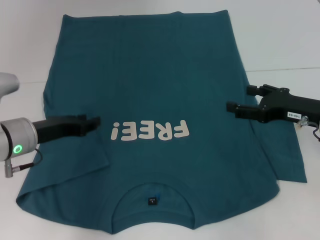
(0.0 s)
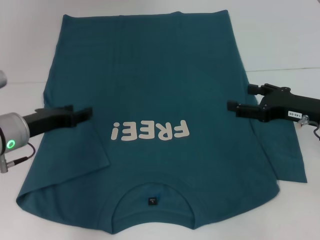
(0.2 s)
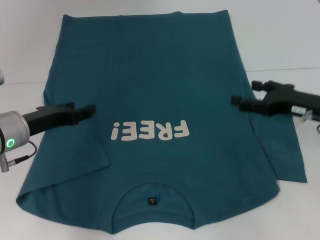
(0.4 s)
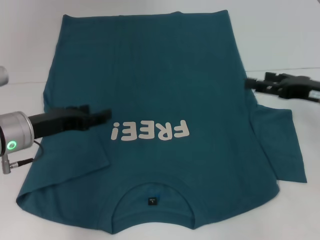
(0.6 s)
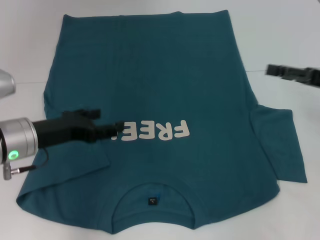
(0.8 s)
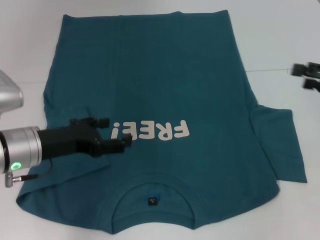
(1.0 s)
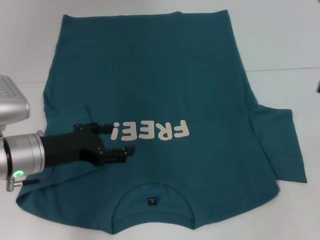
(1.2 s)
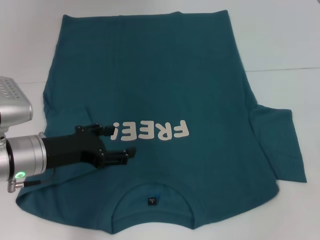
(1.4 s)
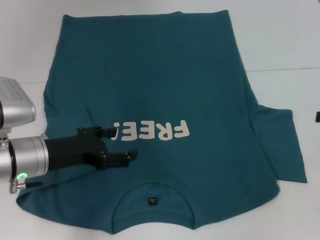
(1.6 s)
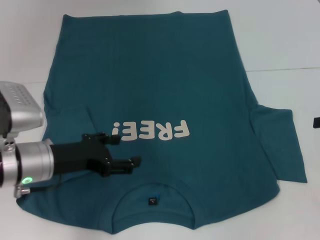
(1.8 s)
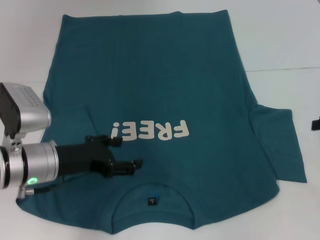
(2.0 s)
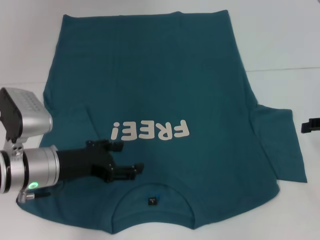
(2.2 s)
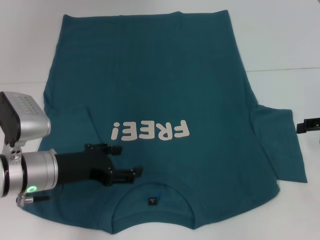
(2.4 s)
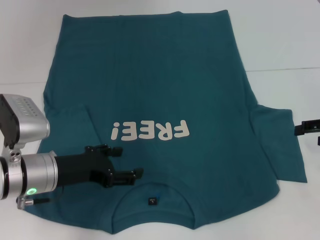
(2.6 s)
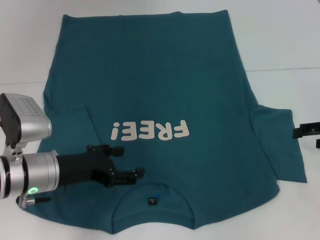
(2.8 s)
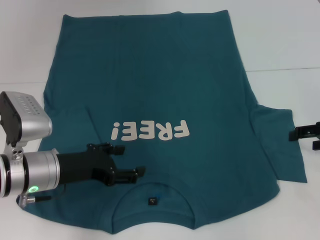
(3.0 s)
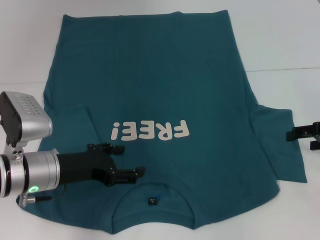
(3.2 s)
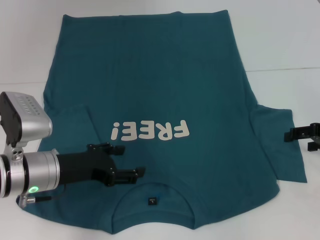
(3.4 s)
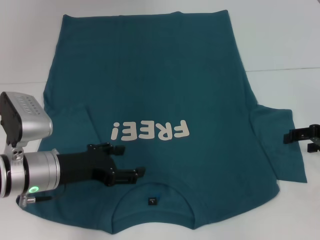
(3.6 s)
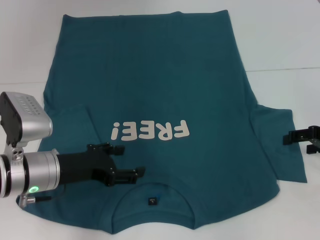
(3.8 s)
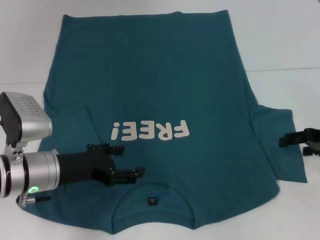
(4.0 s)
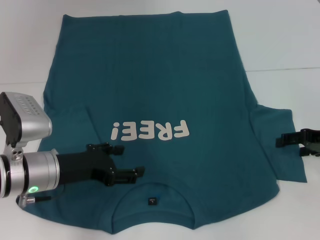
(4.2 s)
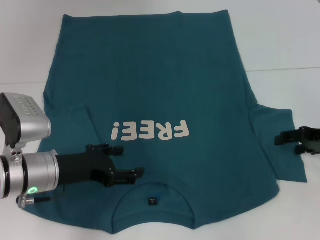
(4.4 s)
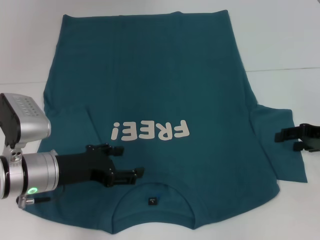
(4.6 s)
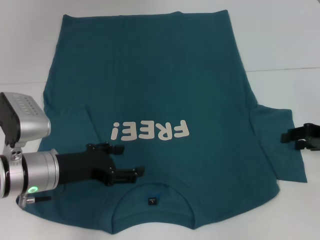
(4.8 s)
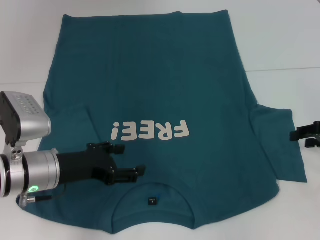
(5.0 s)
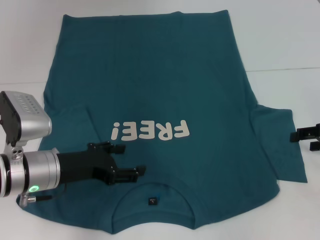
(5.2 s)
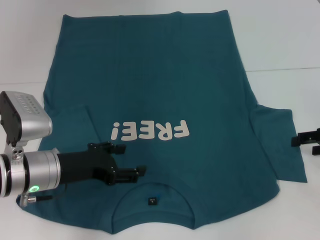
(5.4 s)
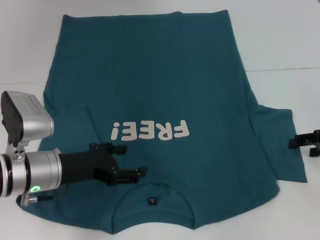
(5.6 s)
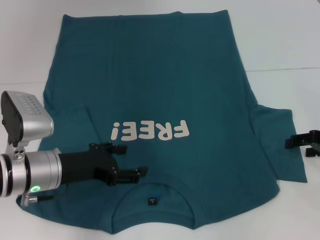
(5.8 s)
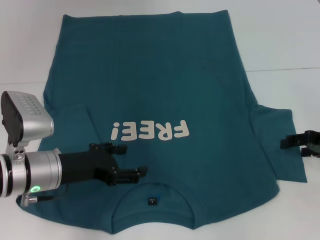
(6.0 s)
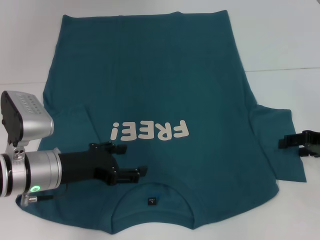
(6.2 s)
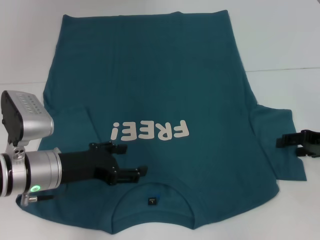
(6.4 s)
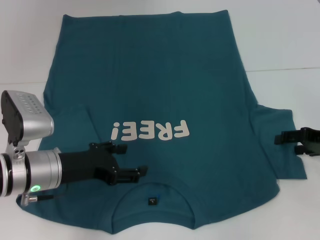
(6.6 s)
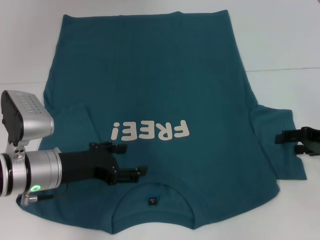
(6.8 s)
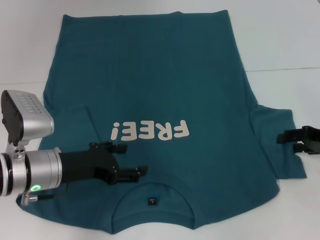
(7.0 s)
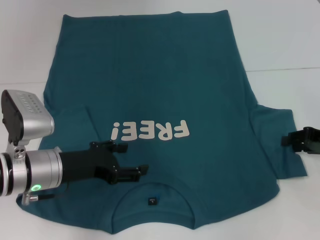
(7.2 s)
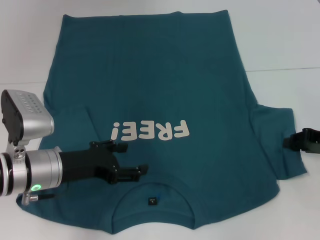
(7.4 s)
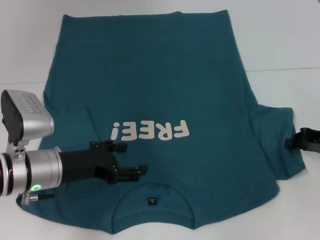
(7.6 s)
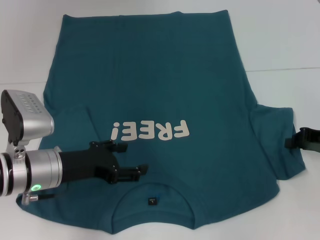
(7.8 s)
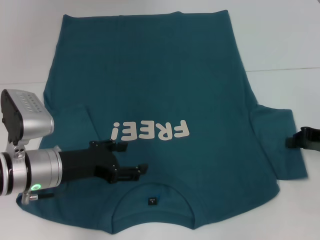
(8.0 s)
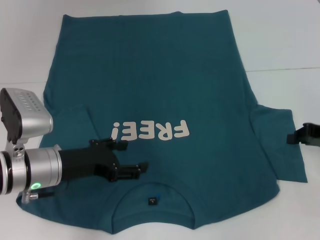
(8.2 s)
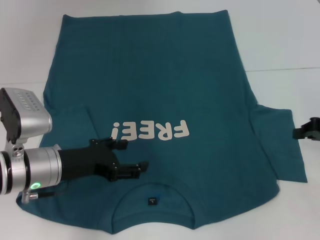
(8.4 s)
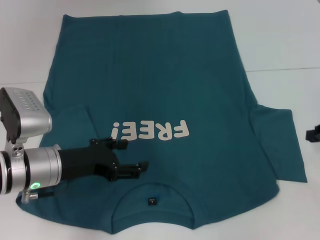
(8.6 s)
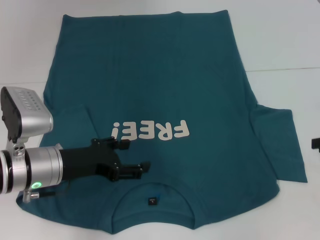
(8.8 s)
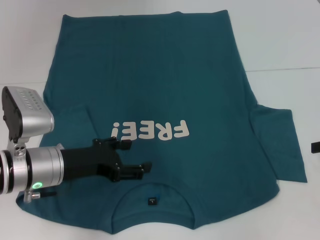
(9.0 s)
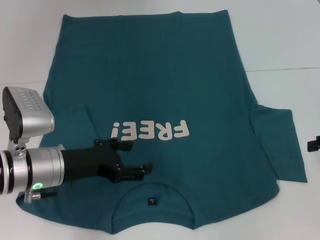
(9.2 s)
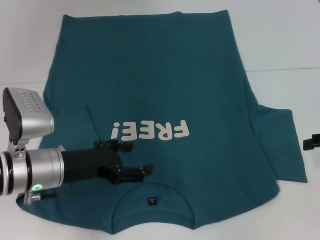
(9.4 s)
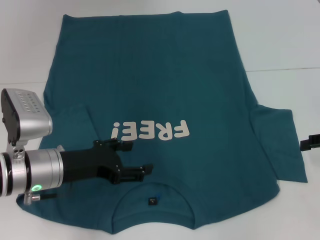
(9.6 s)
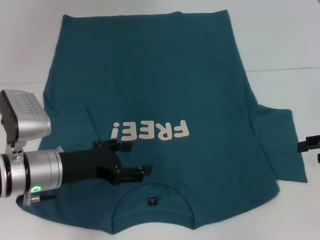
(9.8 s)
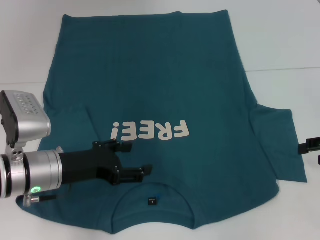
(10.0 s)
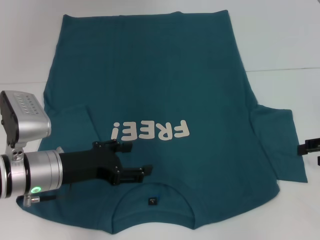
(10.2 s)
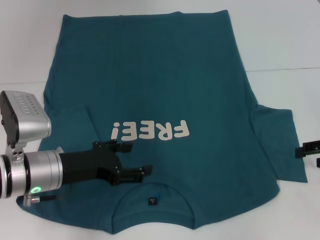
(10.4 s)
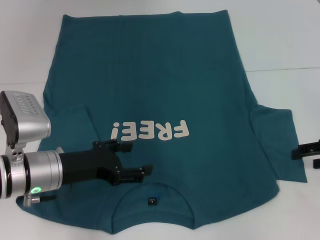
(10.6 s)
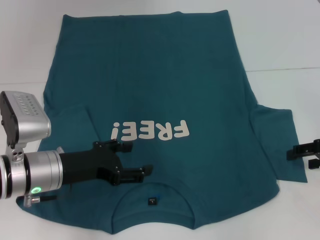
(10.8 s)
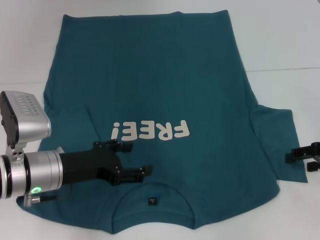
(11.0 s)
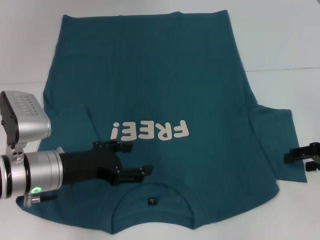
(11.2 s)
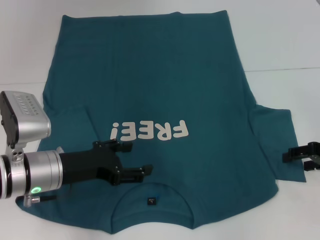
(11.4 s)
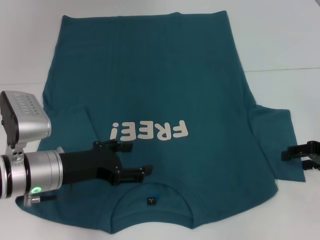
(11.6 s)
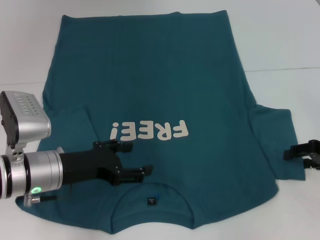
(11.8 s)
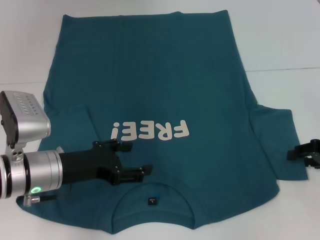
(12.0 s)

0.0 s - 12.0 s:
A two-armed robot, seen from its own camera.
0.0 s - 1.6 s: The right gripper heads to the right and upward, covering some 15 cm; the left gripper opens.
1.6 s - 3.0 s: The right gripper shifts by approximately 5 cm.
3.0 s - 6.0 s: There are only small adjustments of the grippers.
6.0 s - 7.6 s: The right gripper closes up.
7.6 s - 9.0 s: The right gripper shifts by about 5 cm.
9.0 s - 10.4 s: The right gripper opens.

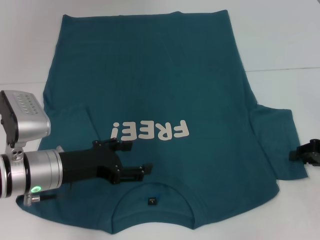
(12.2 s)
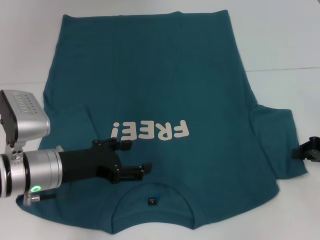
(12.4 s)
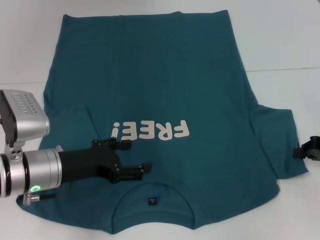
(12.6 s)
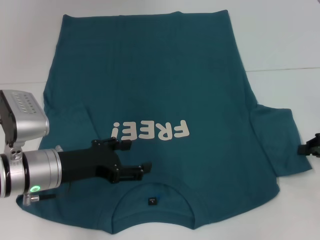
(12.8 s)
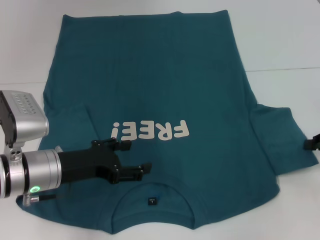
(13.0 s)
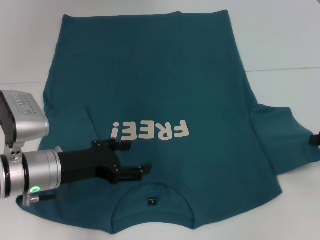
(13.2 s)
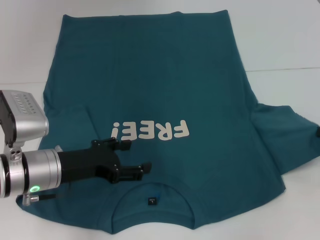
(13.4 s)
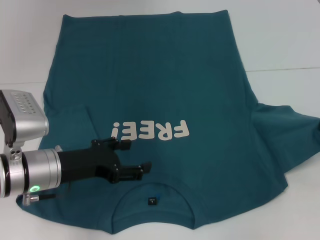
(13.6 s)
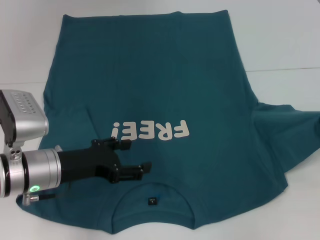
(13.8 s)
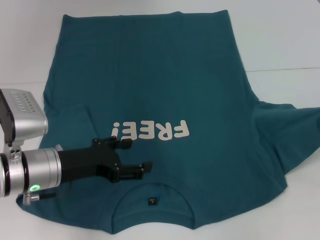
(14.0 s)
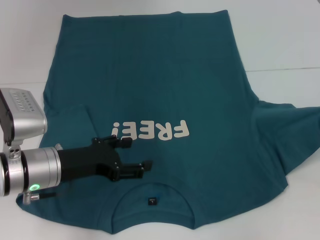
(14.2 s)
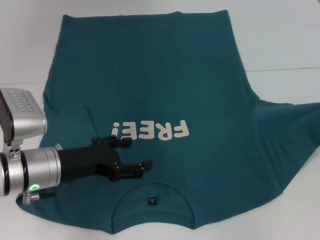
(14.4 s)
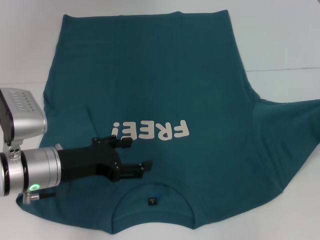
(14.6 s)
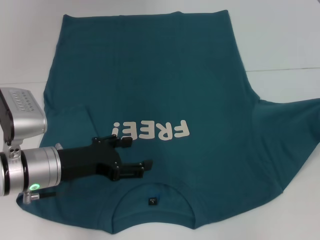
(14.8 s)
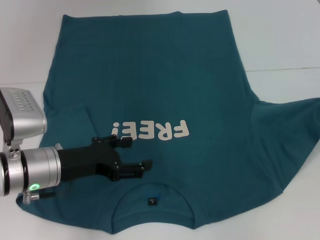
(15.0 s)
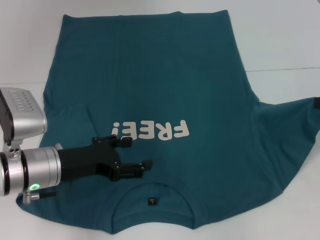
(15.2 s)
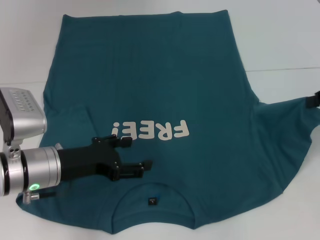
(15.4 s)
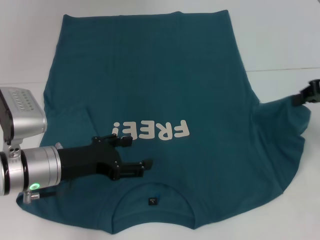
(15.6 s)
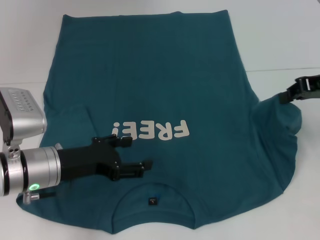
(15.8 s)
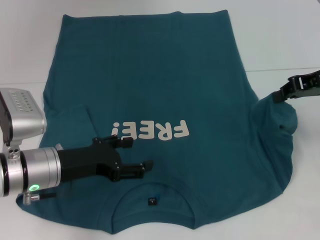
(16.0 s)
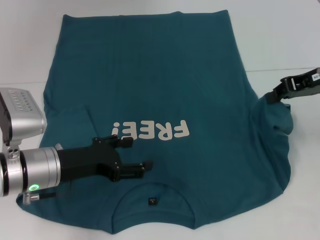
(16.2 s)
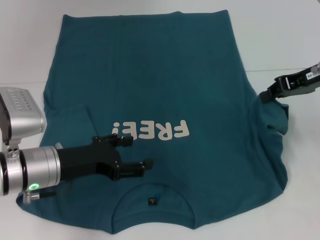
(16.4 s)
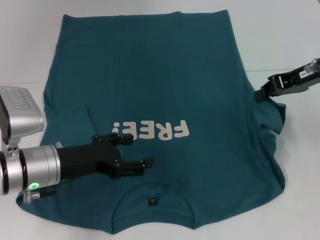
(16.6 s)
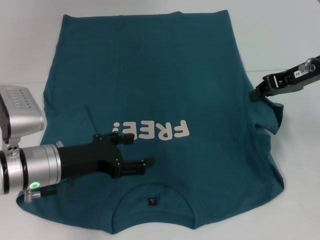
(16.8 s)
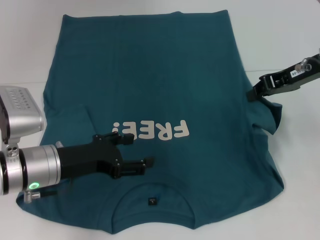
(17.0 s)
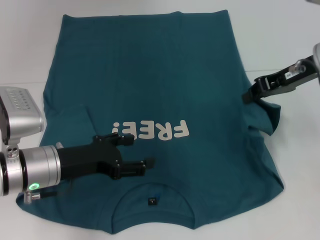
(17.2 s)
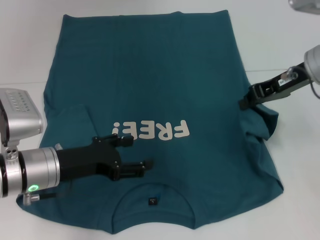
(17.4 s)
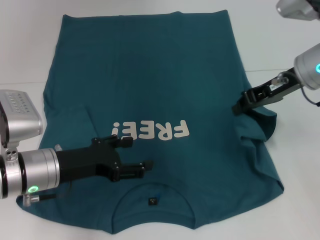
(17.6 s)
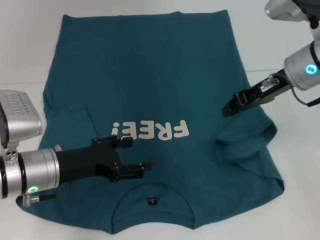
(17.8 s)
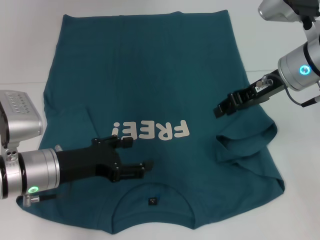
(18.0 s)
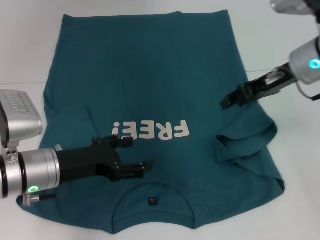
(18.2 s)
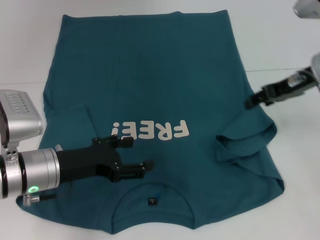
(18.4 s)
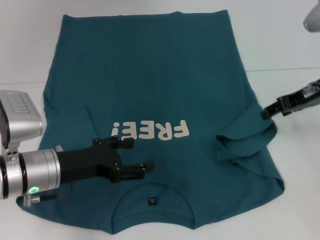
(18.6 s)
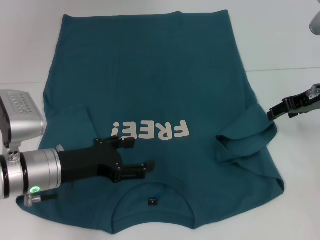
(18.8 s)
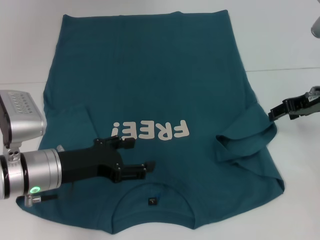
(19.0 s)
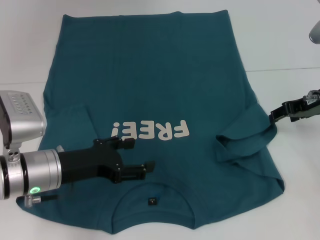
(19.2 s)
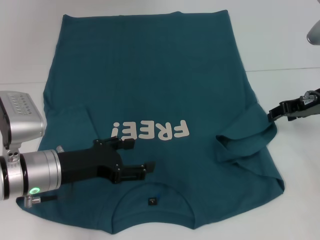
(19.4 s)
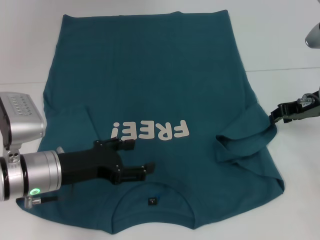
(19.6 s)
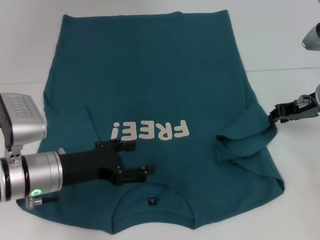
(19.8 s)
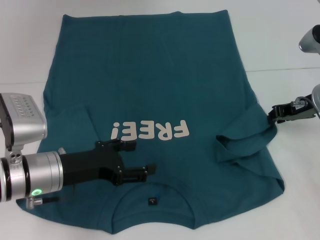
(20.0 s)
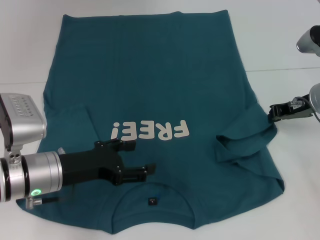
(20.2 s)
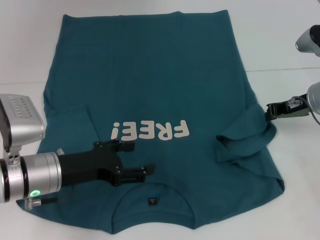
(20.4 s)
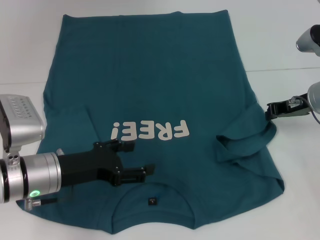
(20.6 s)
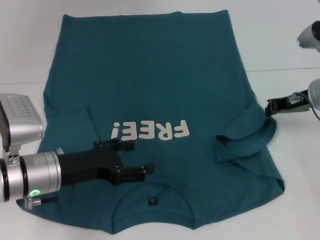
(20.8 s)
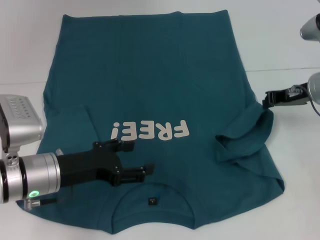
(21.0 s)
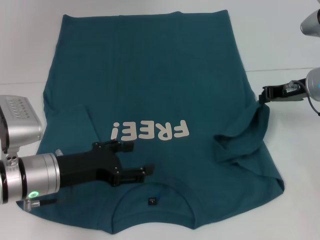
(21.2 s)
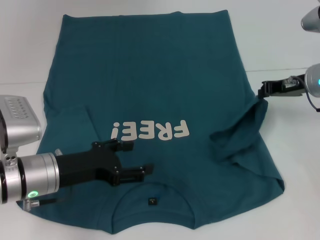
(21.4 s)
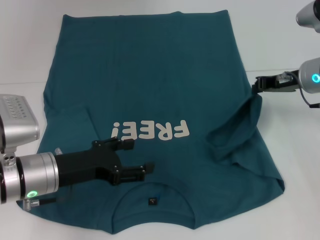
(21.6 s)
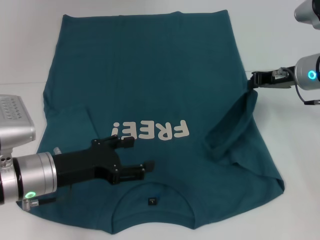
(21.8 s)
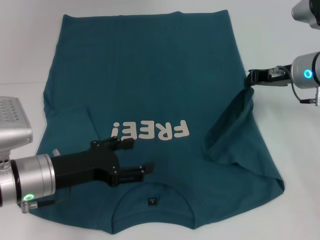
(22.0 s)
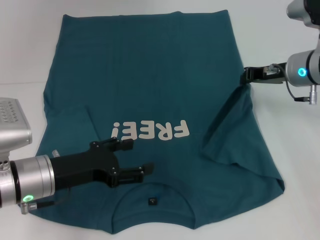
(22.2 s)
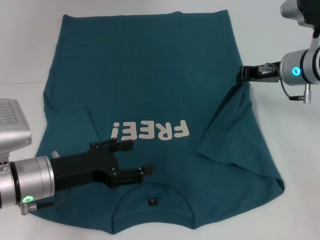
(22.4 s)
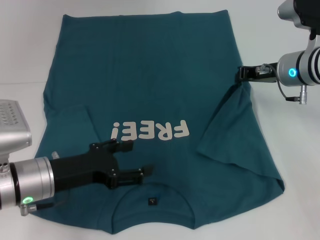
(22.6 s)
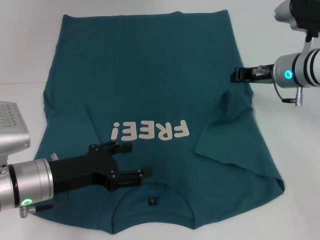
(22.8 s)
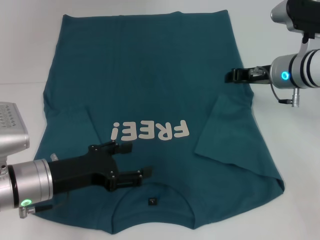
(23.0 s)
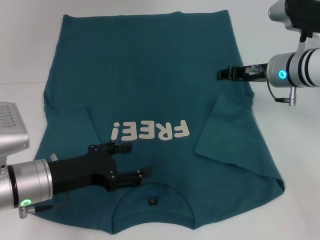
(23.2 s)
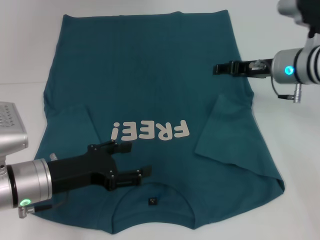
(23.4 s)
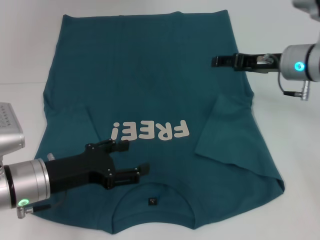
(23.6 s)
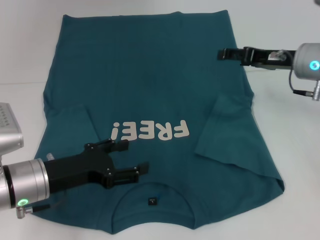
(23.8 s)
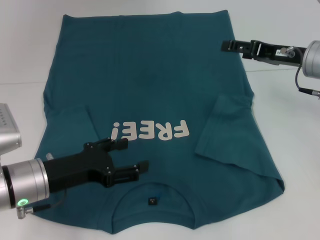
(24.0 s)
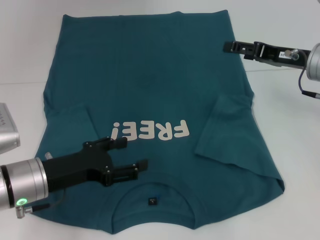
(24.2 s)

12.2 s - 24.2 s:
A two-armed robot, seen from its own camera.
Step, 12.2 s - 23.8 s: Fold the bottom right sleeve to the right.
12.2 s - 13.8 s: The right gripper is displaced upward by roughly 5 cm, and closes its fingers.
13.8 s - 15.2 s: There are only small adjustments of the grippers.
15.2 s - 16.6 s: The right gripper travels to the left by approximately 10 cm.
16.6 s - 18.2 s: The right gripper shifts by approximately 5 cm.
18.2 s - 19.8 s: The right gripper heads downward and to the right, covering about 10 cm.
19.8 s - 21.2 s: The right gripper closes up.
21.2 s - 22.6 s: The grippers move only a little.
22.6 s - 24.2 s: The right gripper ends up about 5 cm from where it was, and opens up.
